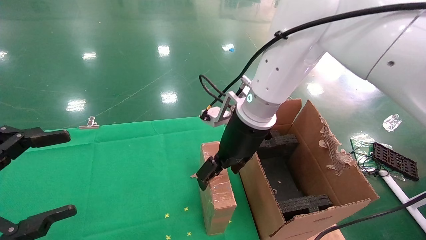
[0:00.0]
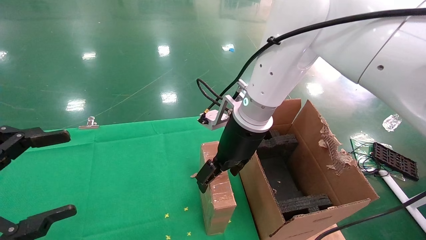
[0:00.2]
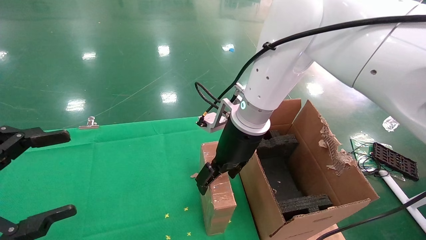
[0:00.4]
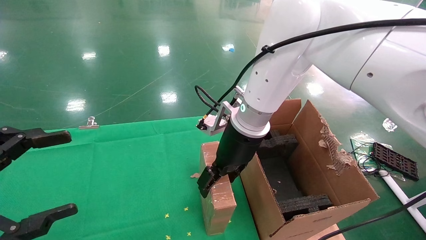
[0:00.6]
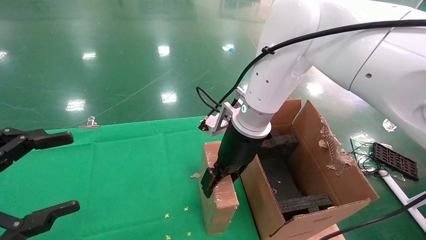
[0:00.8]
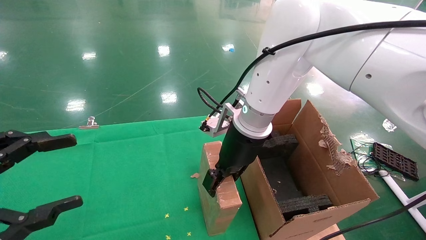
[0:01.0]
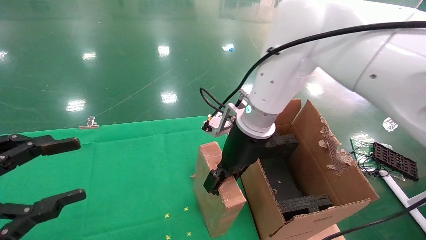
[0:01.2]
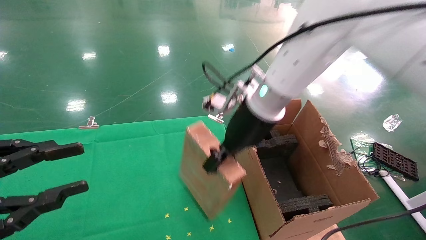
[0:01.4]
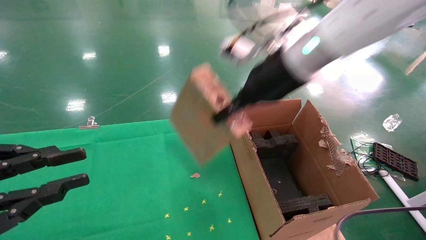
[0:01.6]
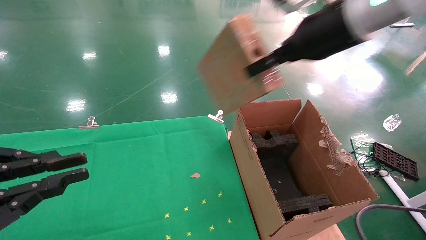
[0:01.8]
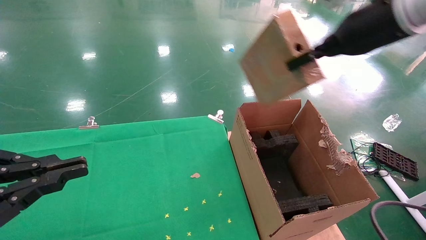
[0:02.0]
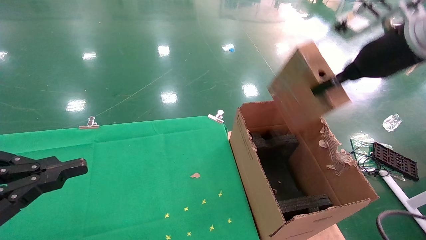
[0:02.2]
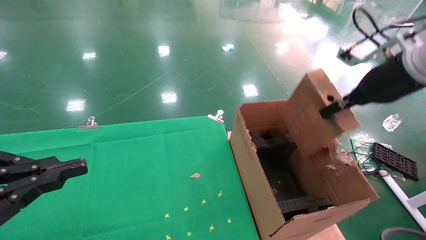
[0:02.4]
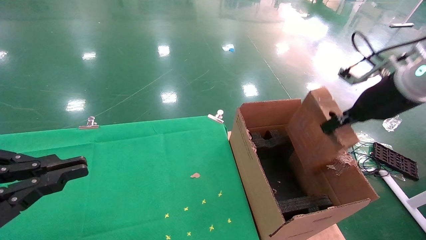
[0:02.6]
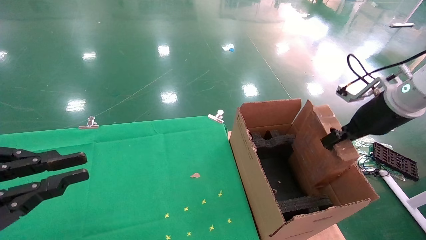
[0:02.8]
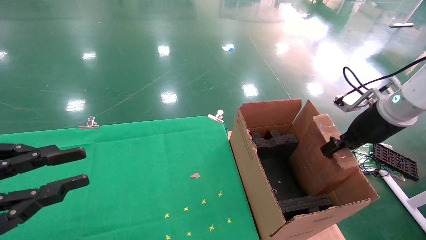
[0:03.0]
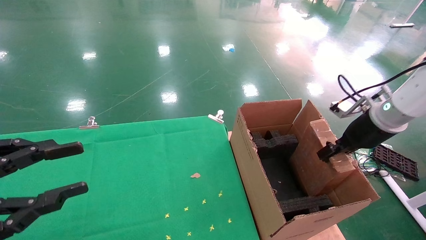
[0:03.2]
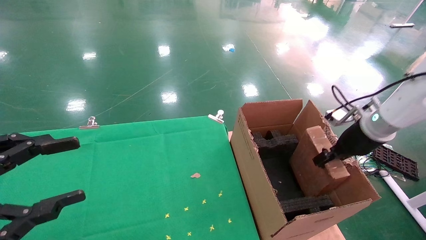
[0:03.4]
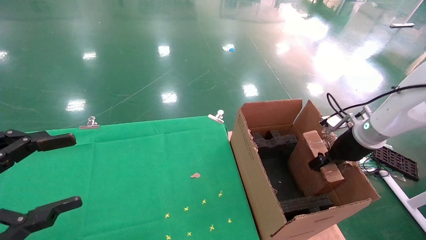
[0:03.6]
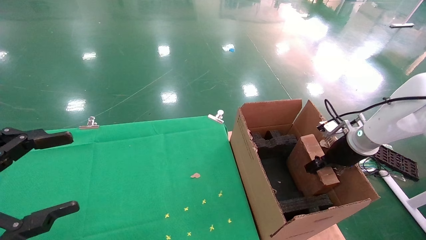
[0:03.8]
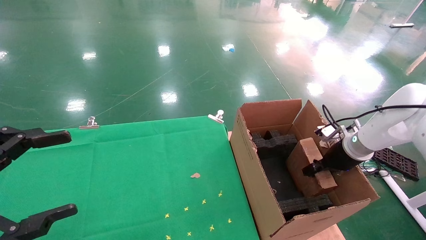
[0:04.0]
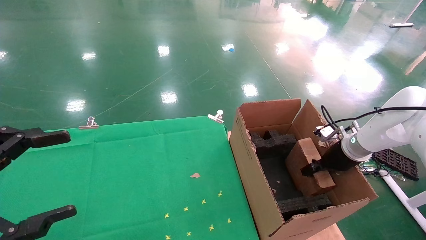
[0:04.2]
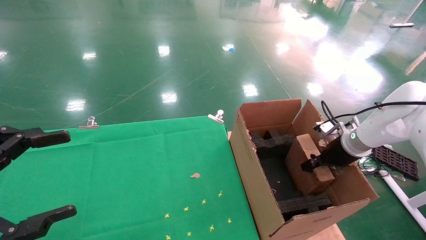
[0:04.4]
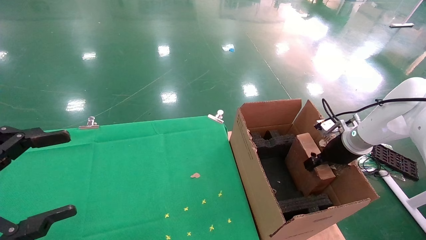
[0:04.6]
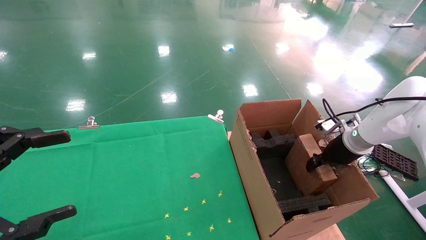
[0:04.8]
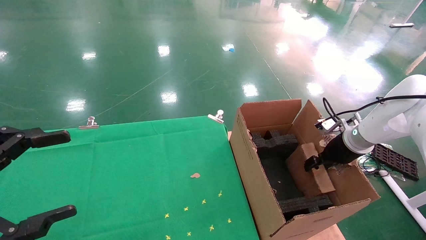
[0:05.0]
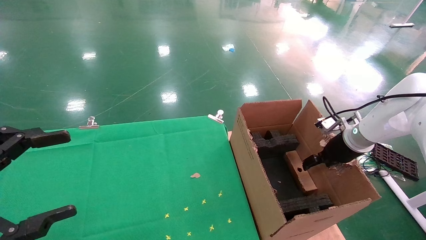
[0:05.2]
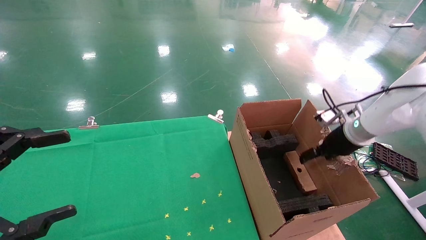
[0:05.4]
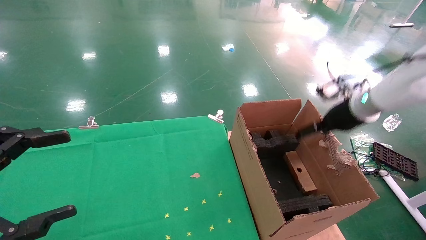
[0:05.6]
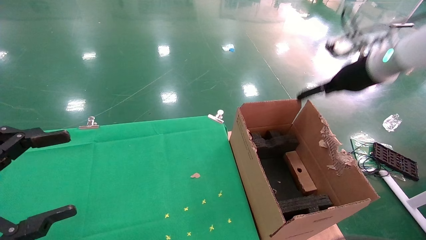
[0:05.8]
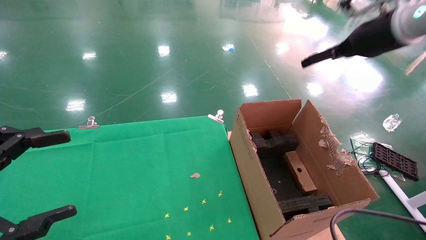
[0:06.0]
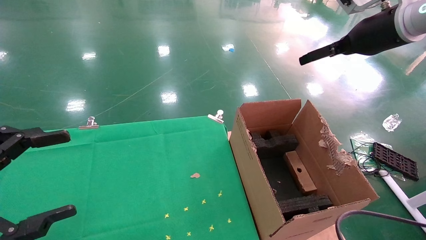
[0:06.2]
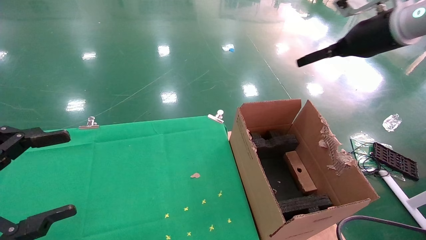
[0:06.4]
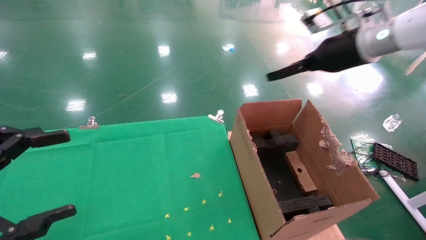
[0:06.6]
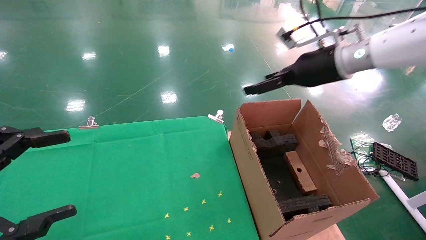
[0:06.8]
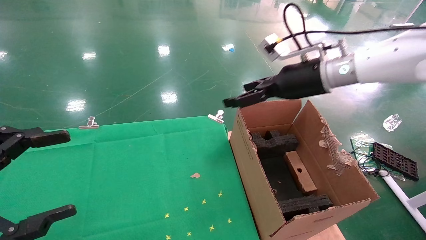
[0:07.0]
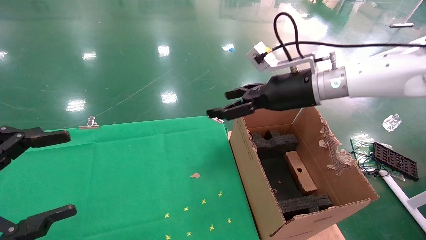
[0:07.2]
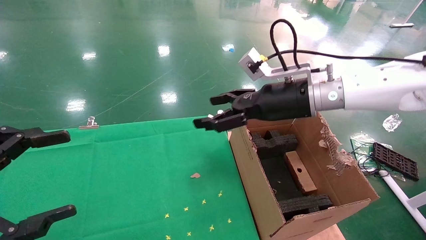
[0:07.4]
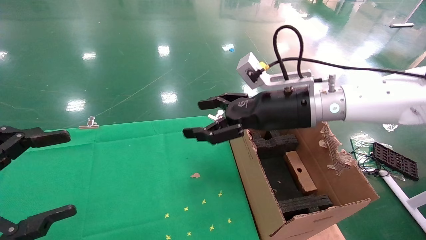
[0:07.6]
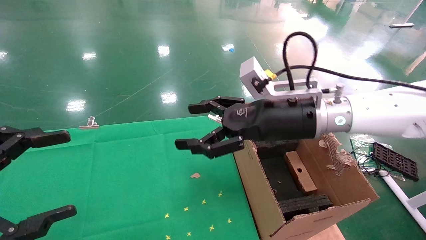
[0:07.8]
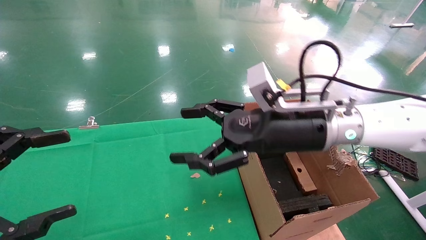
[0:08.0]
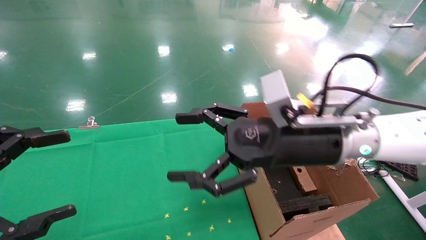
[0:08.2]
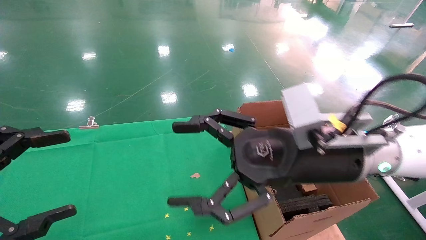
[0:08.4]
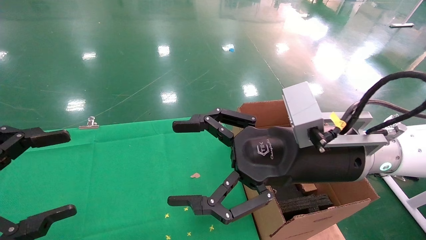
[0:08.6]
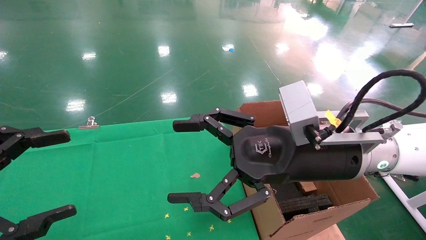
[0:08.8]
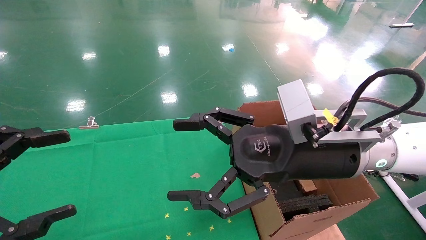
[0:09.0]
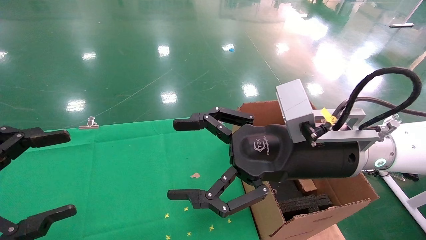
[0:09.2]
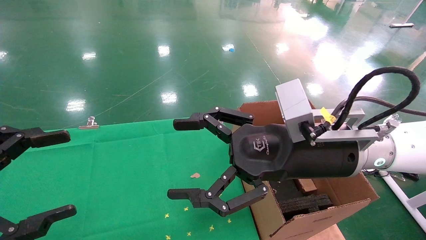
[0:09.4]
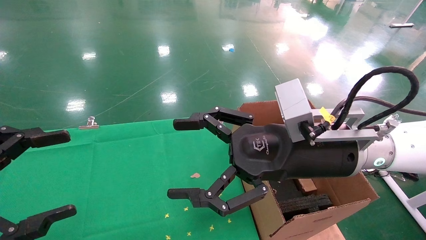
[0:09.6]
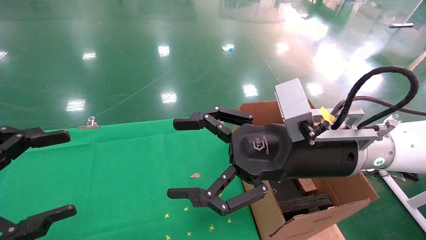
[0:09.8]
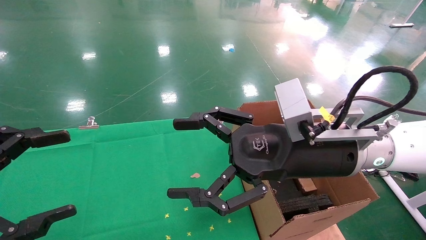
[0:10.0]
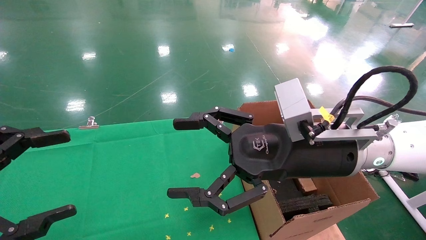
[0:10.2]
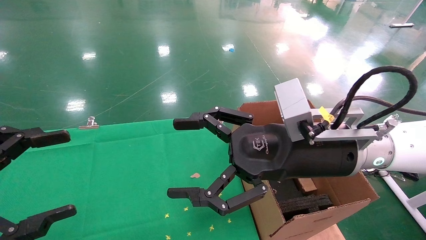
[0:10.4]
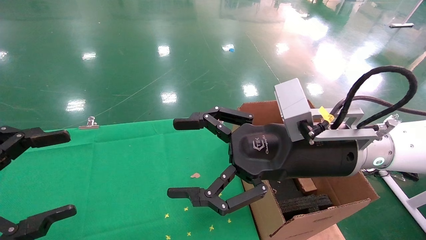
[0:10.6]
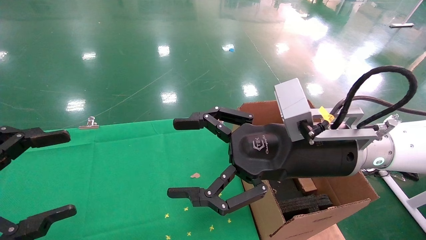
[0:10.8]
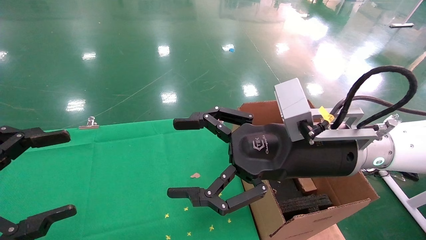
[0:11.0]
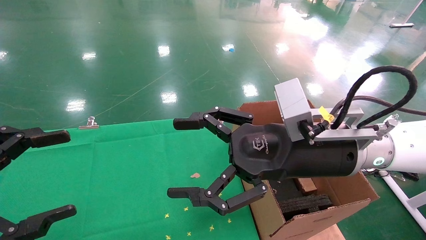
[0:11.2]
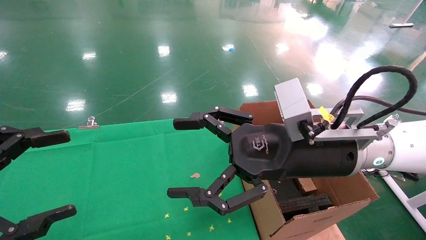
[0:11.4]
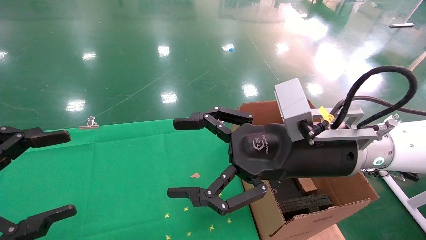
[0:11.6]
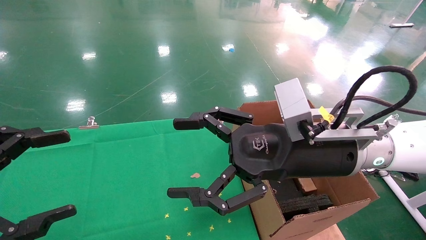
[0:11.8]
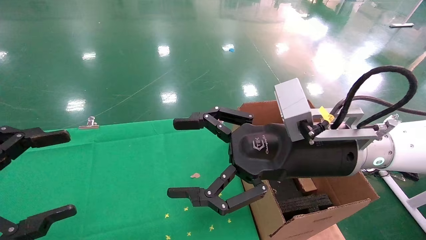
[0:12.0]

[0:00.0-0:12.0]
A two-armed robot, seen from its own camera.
Task of the whole recording: using a robotic arm to pick up a cardboard box and palace it the carton.
Step, 0:01.2 to 0:05.0: Place the mouse and the power cord paper box into the container.
0:00.0 to 0:01.6: The right gripper shifts about 15 cm upward and to the right, and closes, while the left gripper closes.
0:01.6 to 0:03.0: The right gripper travels to the right and downward by approximately 25 cm.
0:03.0 to 0:04.4: The left gripper opens; the right gripper moves downward and forward, some 15 cm.
0:04.4 to 0:06.0: The right gripper moves upward, about 25 cm, and opens.
0:06.0 to 0:07.6: The right gripper is displaced to the left and downward by approximately 20 cm.
0:07.6 to 0:09.0: The right gripper moves backward, some 10 cm.
0:09.0 to 0:12.0: Both grippers stay put.
